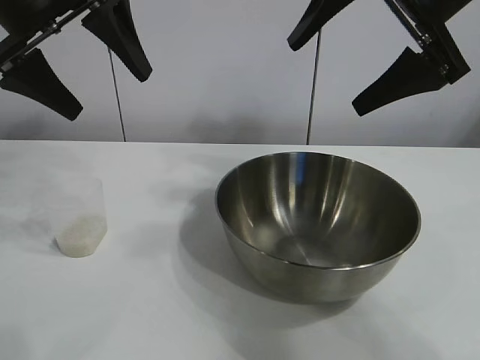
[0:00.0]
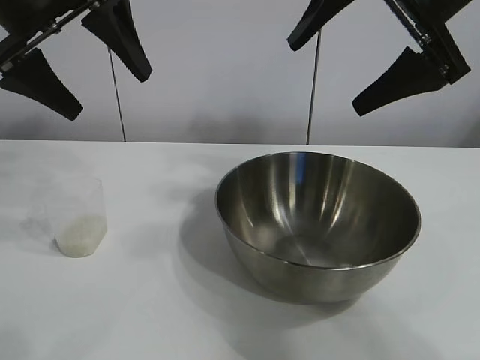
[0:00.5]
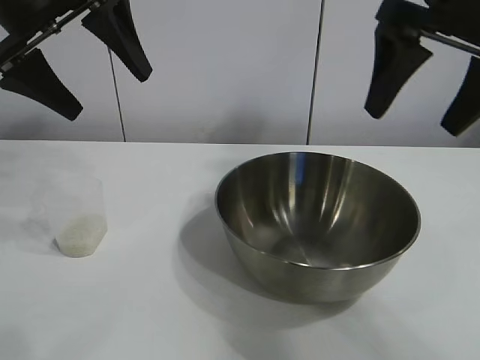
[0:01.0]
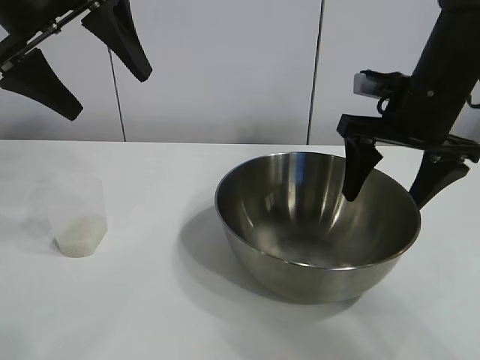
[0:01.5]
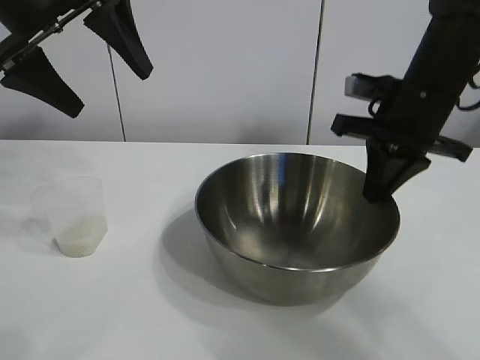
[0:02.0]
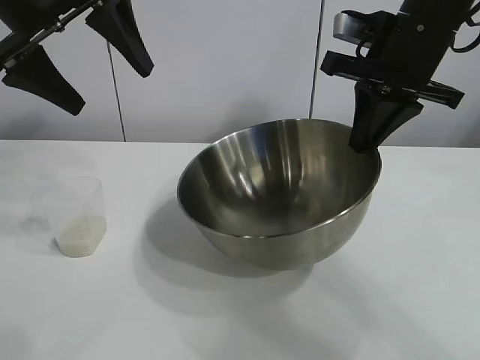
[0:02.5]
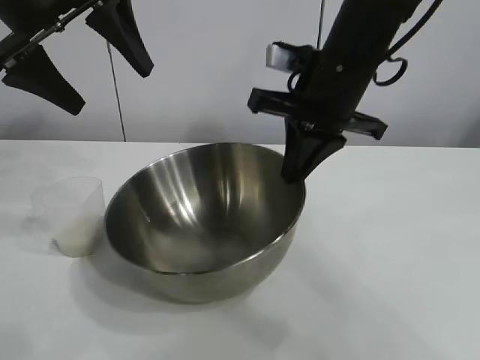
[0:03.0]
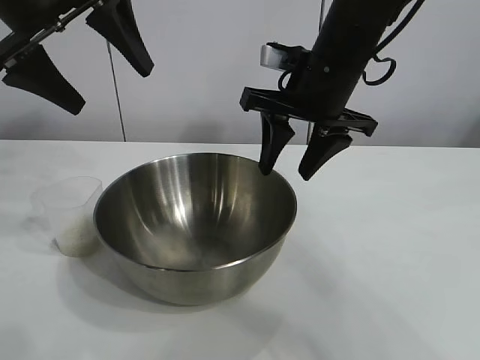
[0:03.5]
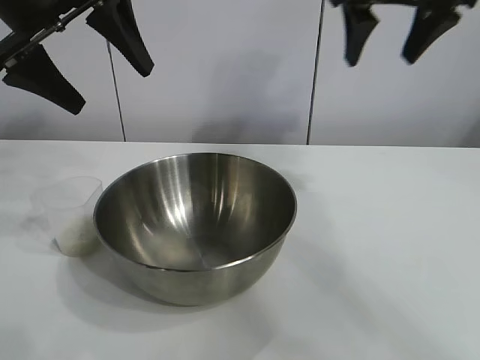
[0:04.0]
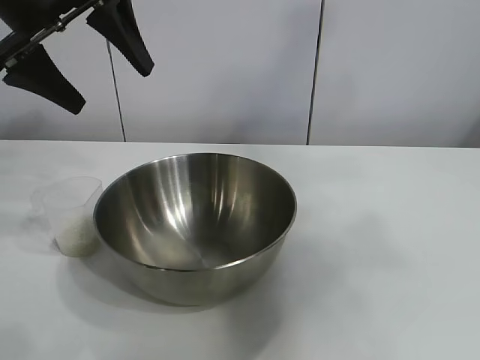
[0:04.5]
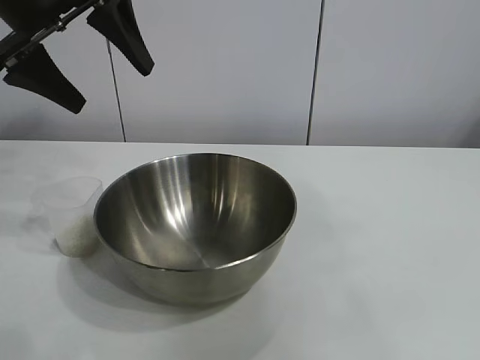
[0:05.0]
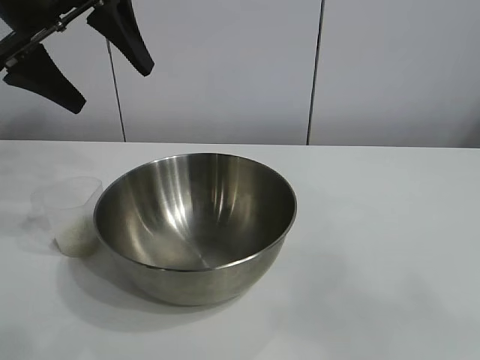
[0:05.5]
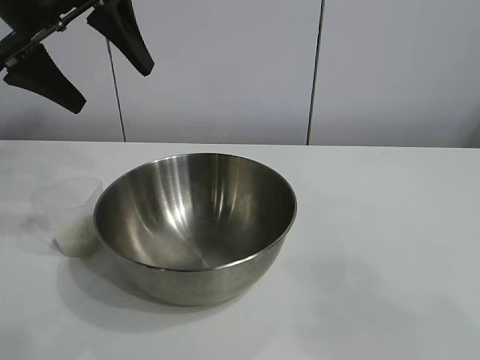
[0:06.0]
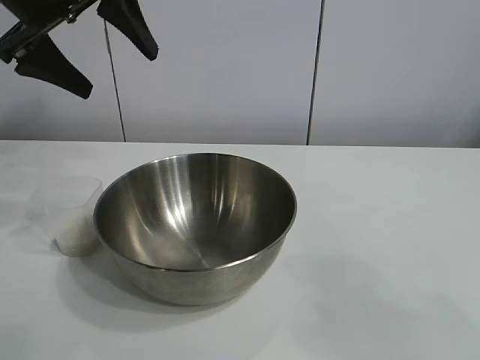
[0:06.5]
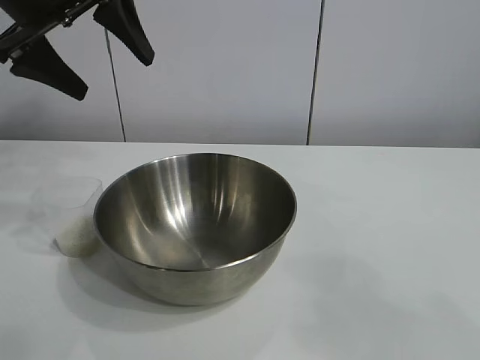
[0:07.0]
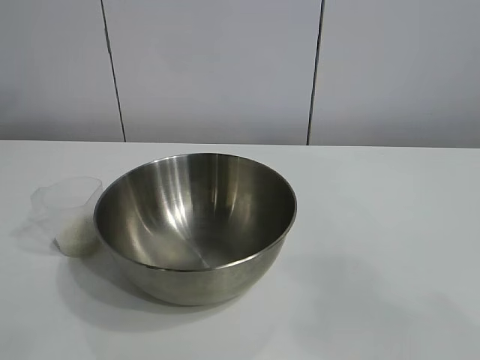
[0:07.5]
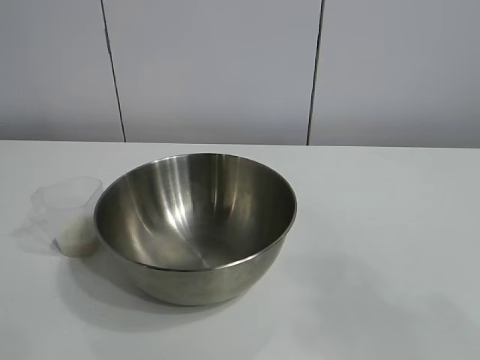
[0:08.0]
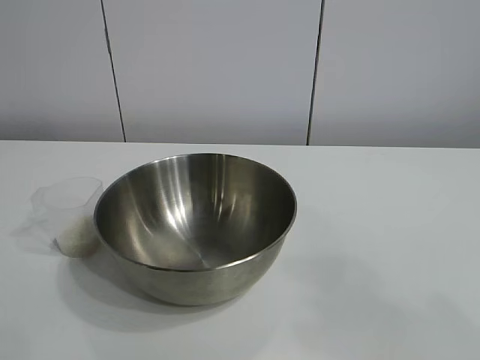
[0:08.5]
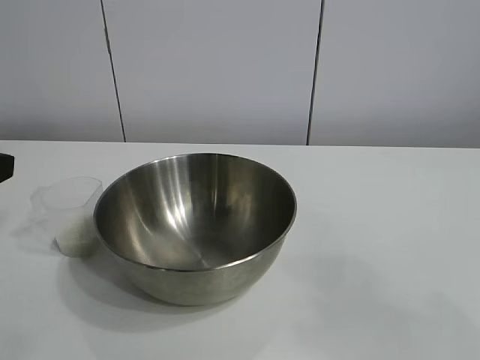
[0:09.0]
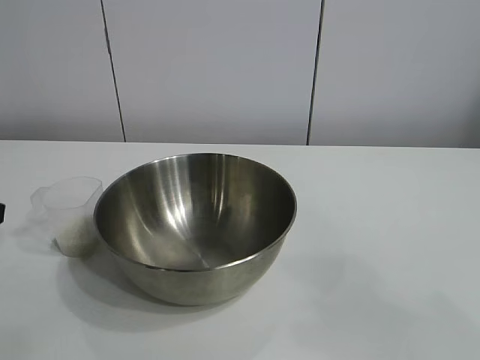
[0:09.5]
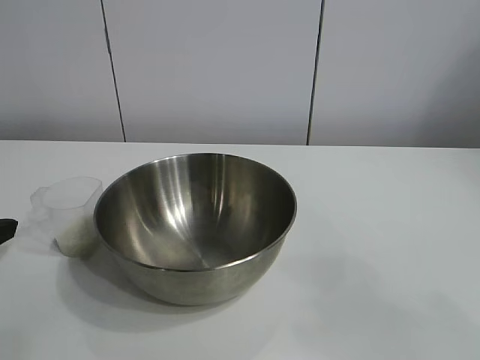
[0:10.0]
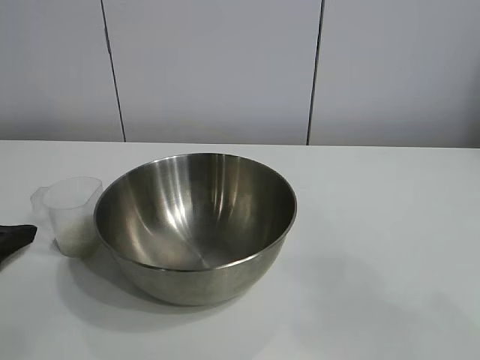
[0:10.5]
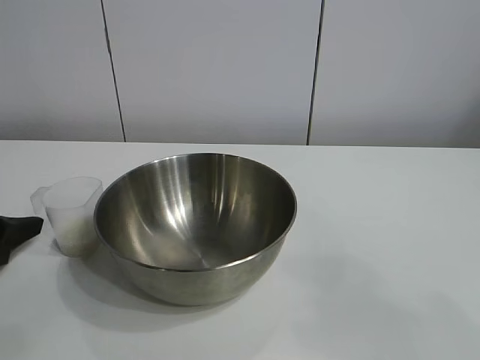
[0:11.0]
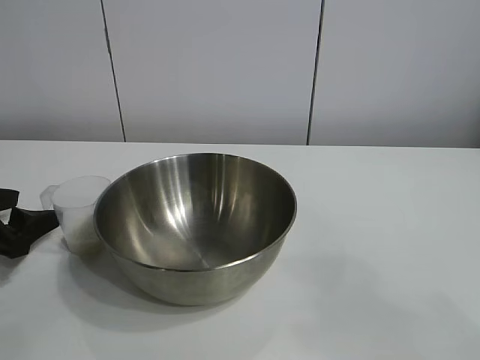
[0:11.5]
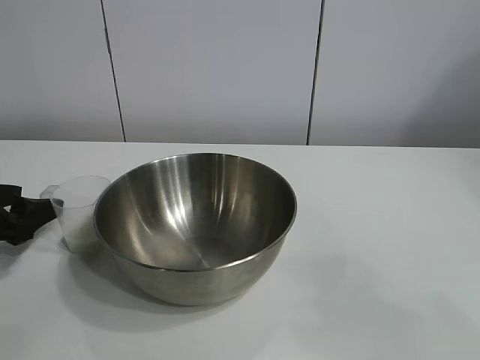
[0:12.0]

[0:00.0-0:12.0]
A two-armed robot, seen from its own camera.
Task of the whole recording: the right gripper grasp the rice container and place it in the center of the table, the left gripper grasp the rice scoop and pour the rice into the rice container.
Step, 0:01.0 to 0:03.0: Move the bowl in the center of view with right gripper.

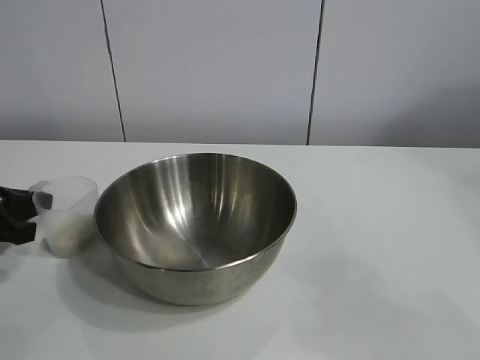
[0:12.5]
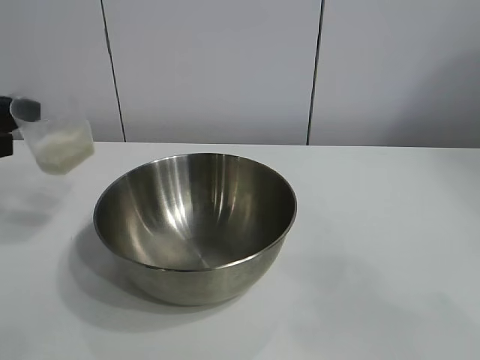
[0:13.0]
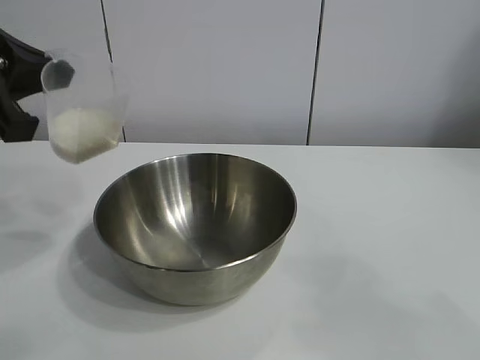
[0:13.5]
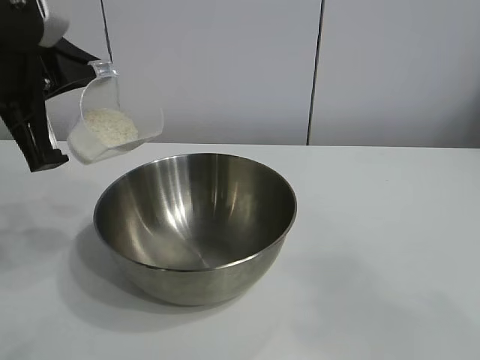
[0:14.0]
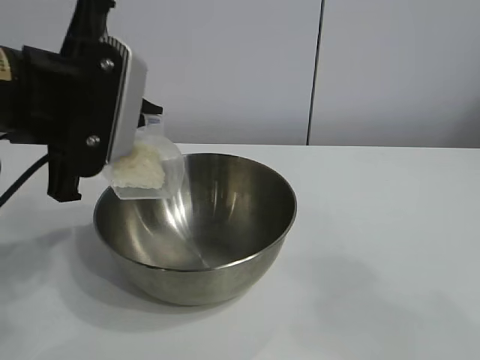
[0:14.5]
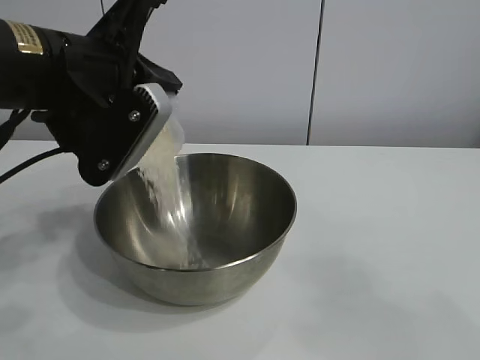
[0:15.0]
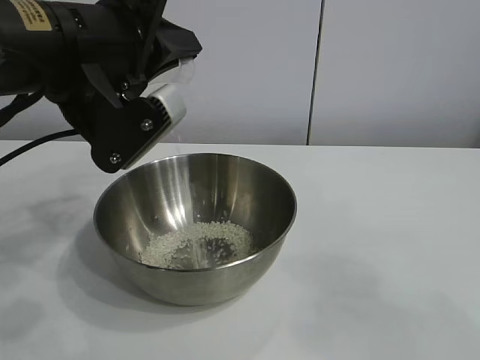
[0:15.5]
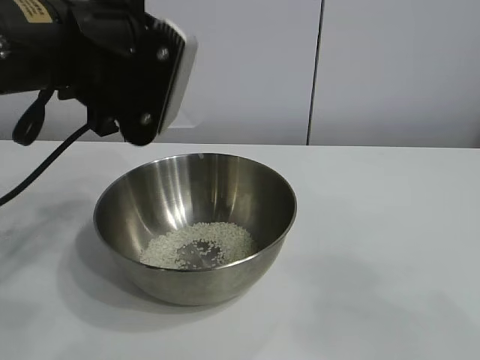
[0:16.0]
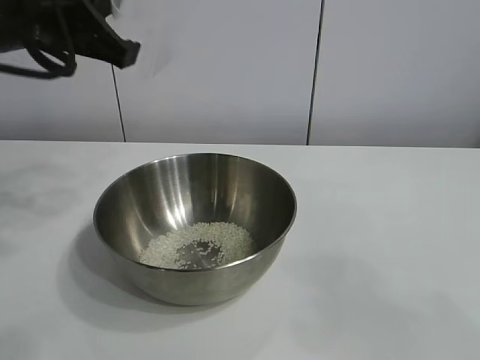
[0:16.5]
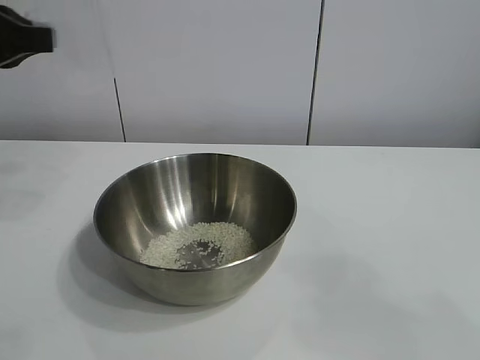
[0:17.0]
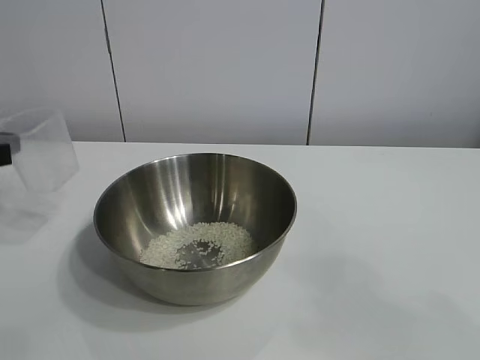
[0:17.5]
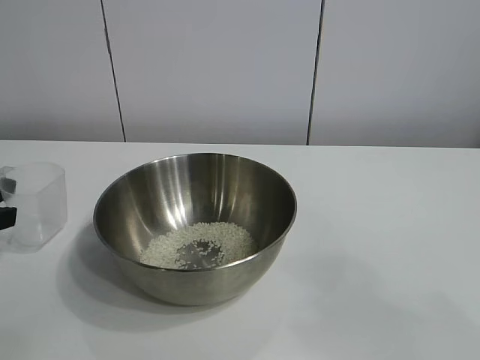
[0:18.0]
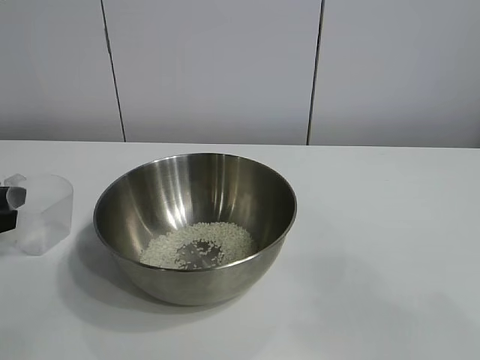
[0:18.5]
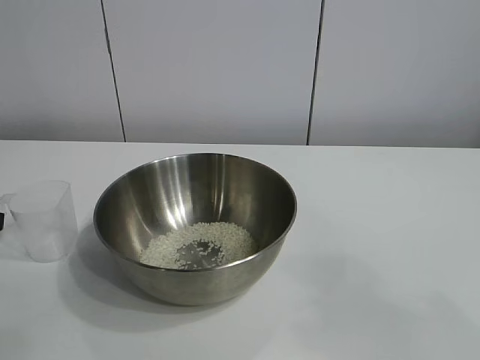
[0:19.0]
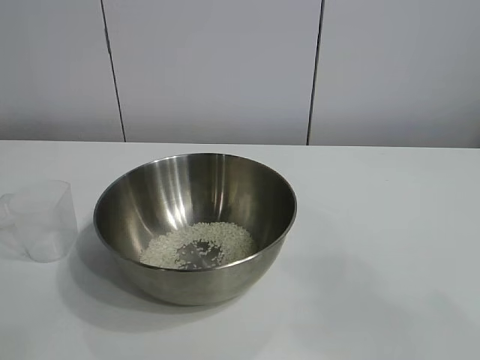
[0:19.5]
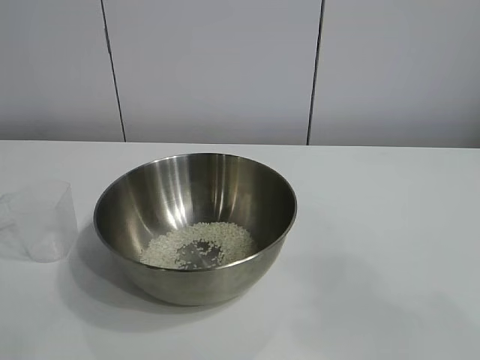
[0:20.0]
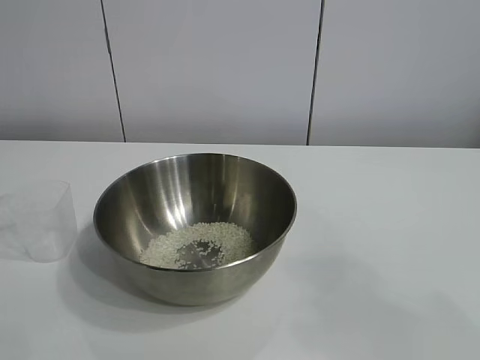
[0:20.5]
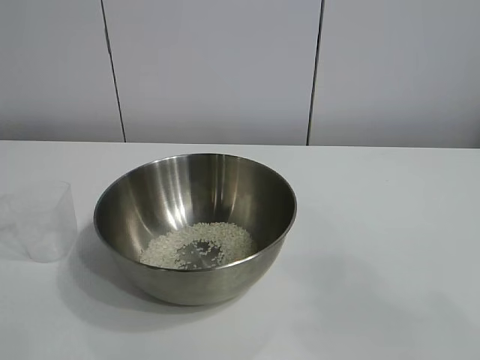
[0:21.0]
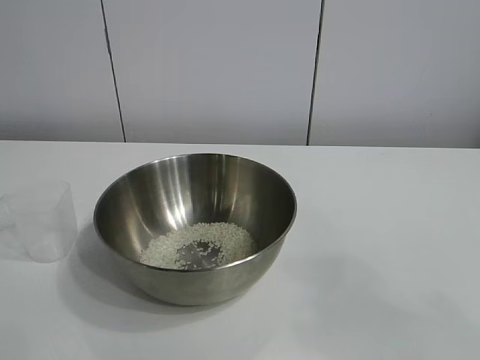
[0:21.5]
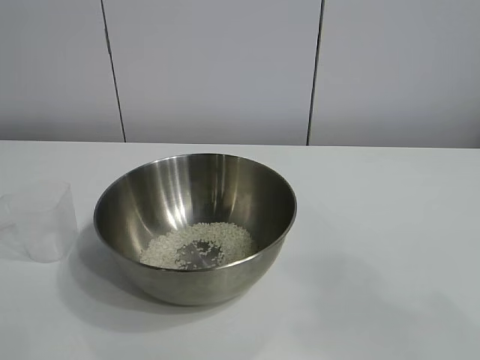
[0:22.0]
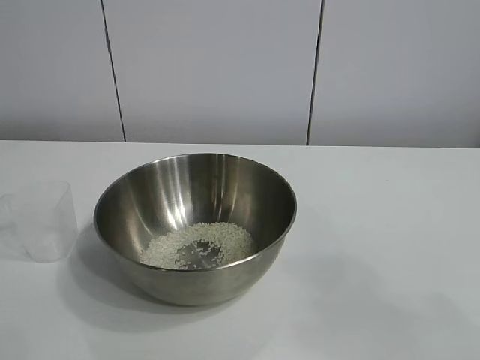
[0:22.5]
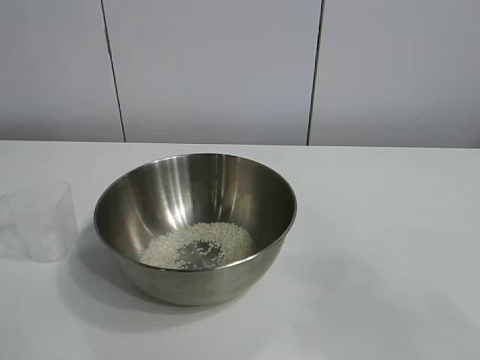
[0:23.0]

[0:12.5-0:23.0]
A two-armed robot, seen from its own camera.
Task of the whole recording: the right gripper grasp the rice container and place it in the center of the table, the left gripper grasp the rice scoop and pour the rice into the rice container.
Step, 0:12.5 to 0:15.5: Pour the rice from the cup into the bowl with the left gripper.
Step, 0:16.0 to 0:18.5: Place the cup on the table with the left gripper.

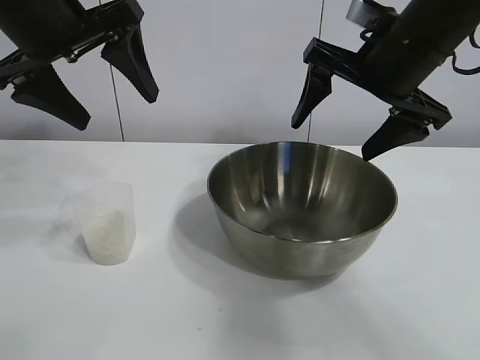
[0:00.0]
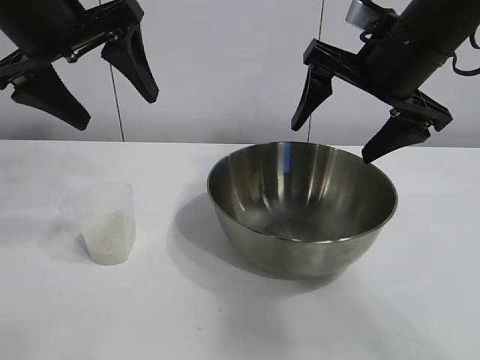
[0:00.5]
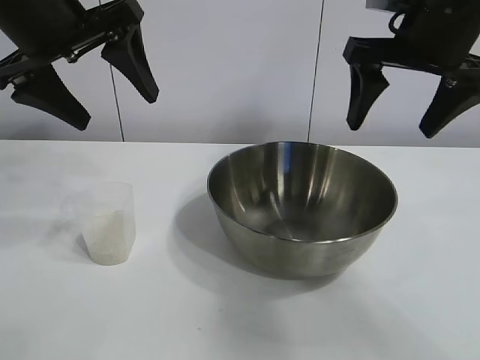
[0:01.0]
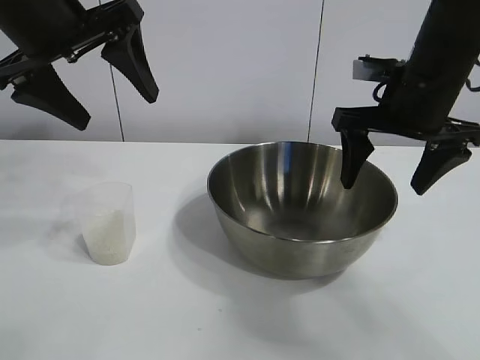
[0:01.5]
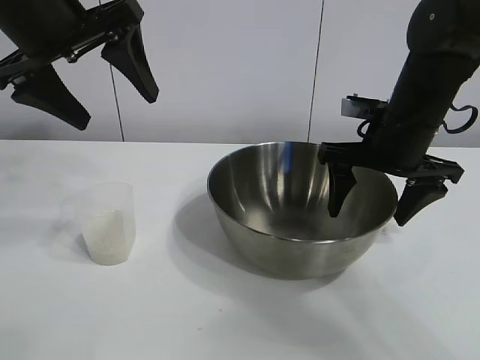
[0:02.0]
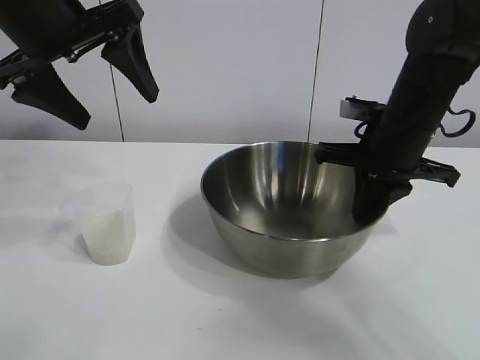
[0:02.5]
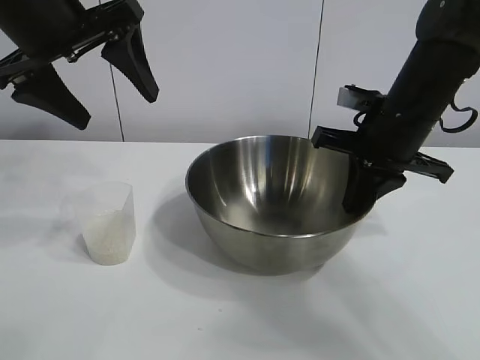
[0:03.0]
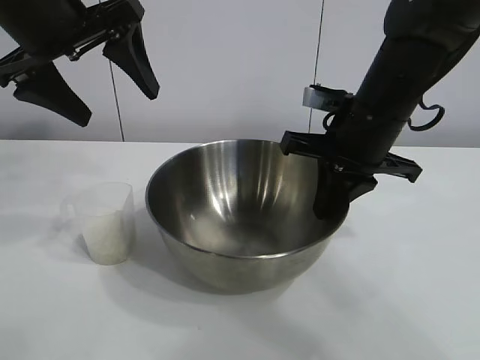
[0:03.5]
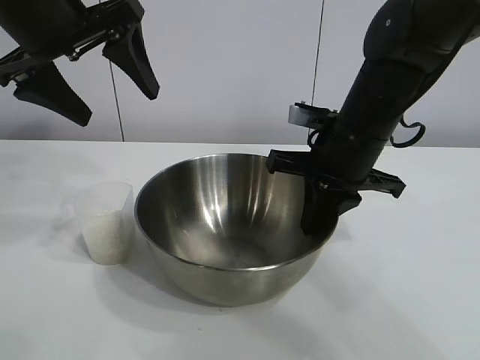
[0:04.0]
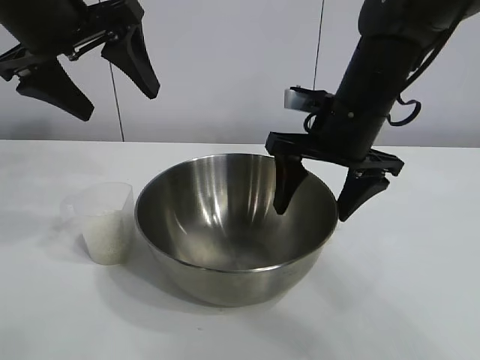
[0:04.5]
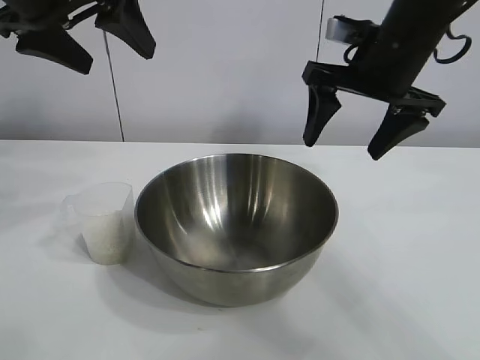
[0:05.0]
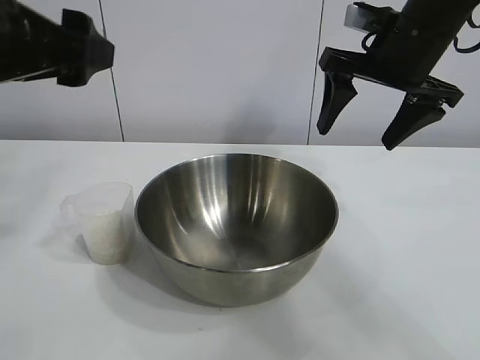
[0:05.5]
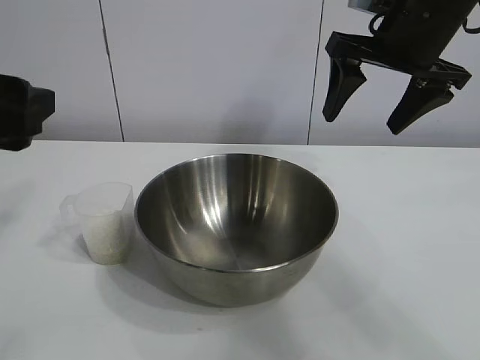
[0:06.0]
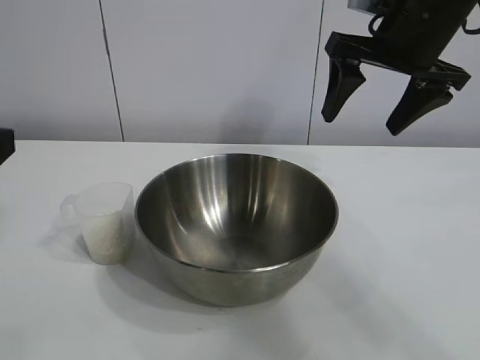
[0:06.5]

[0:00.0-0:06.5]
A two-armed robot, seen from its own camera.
Task of the whole recording: the right gripper grasp the rice container and place it in the center of the table, the left gripper grasp the rice scoop and pour the rice into the rice container.
Step, 0:01.0 to 0:04.0: Move the bowl in the center of view with right gripper.